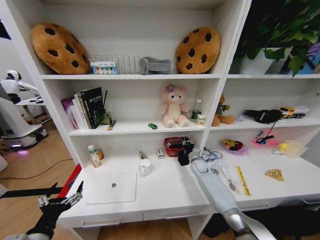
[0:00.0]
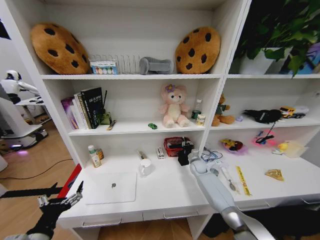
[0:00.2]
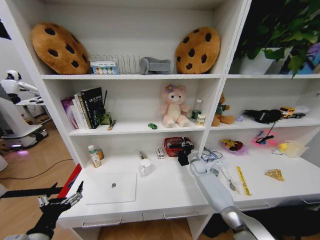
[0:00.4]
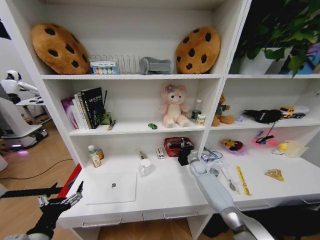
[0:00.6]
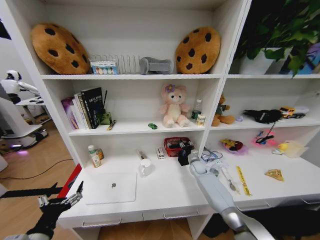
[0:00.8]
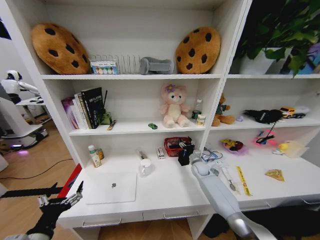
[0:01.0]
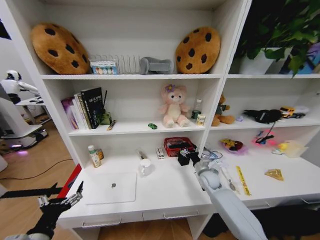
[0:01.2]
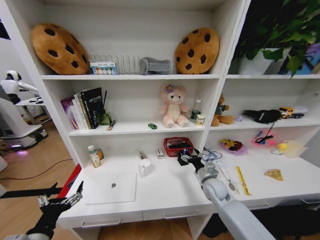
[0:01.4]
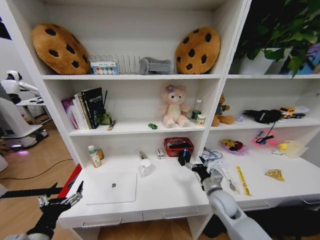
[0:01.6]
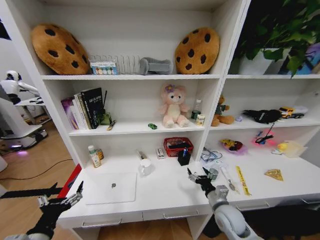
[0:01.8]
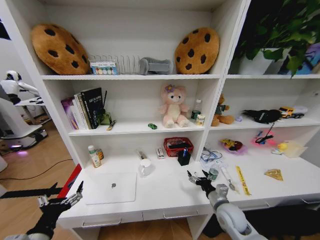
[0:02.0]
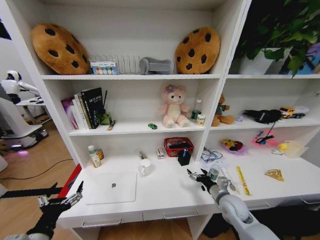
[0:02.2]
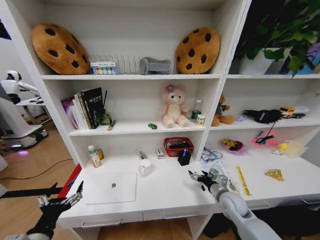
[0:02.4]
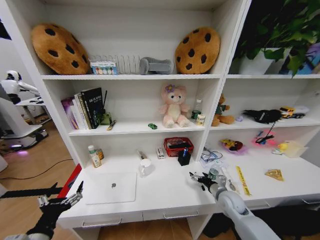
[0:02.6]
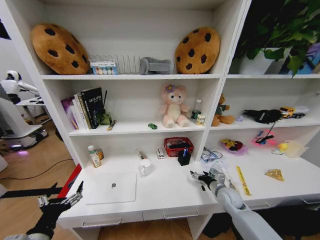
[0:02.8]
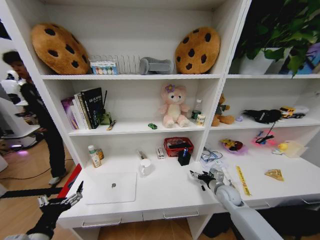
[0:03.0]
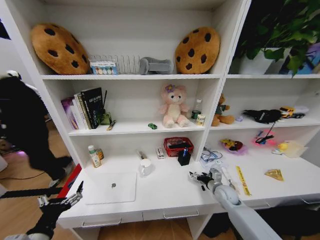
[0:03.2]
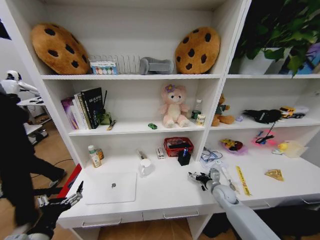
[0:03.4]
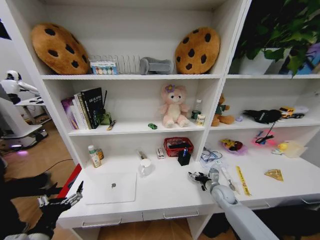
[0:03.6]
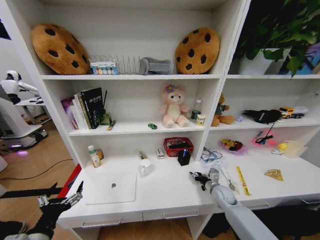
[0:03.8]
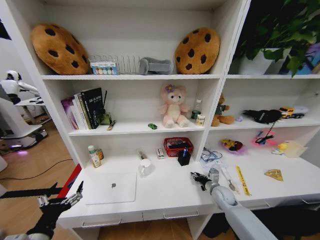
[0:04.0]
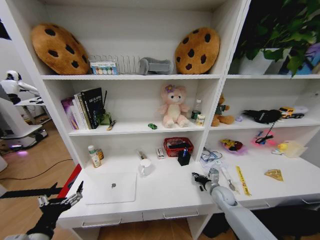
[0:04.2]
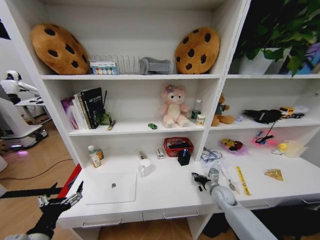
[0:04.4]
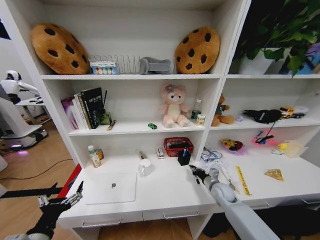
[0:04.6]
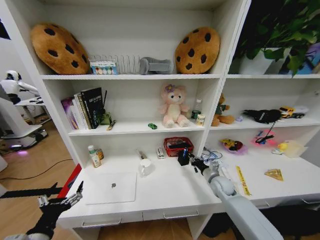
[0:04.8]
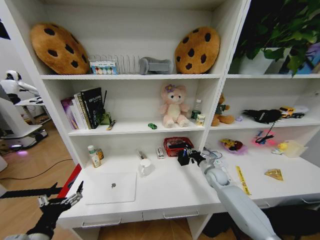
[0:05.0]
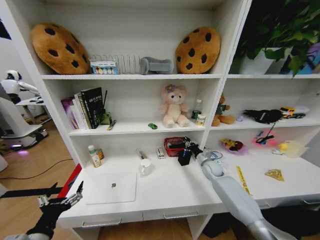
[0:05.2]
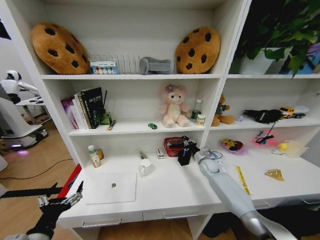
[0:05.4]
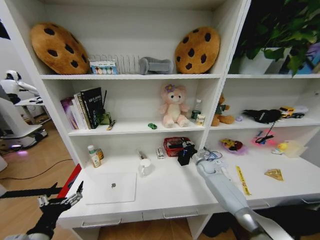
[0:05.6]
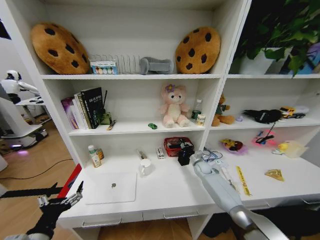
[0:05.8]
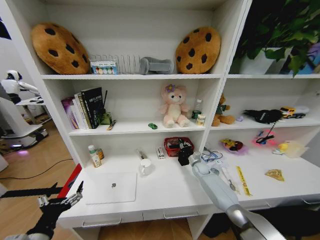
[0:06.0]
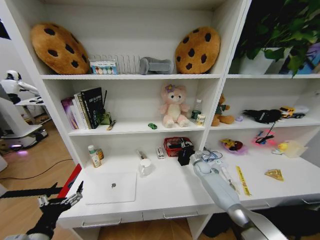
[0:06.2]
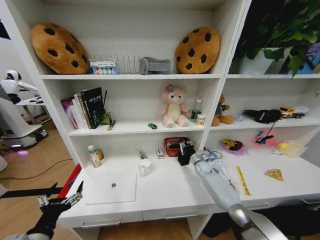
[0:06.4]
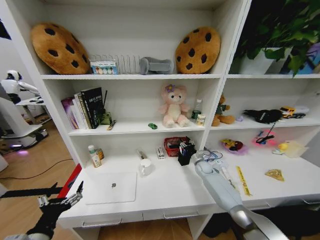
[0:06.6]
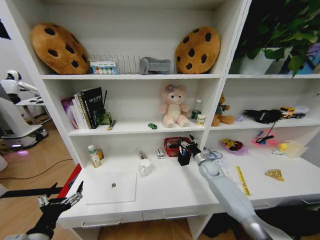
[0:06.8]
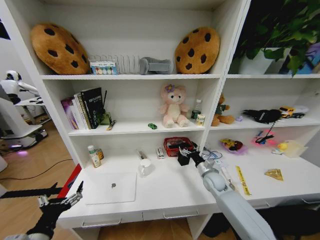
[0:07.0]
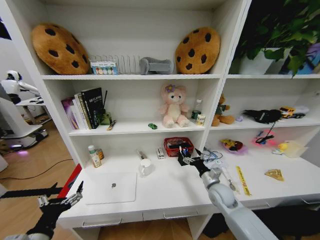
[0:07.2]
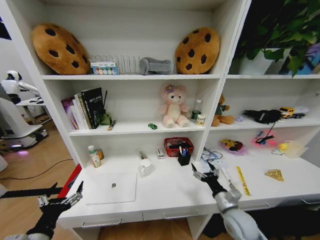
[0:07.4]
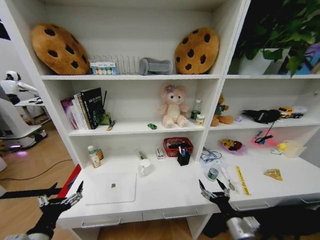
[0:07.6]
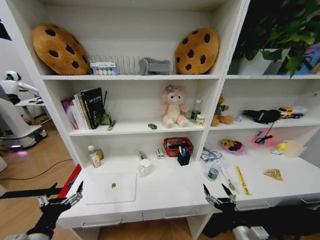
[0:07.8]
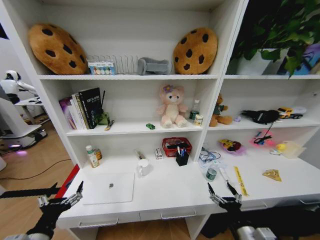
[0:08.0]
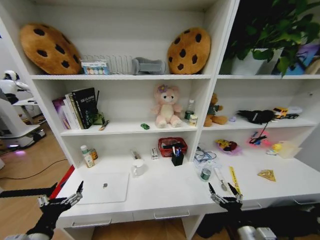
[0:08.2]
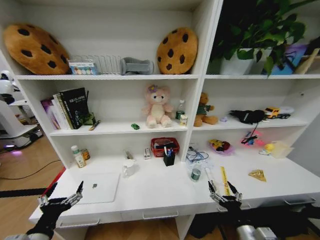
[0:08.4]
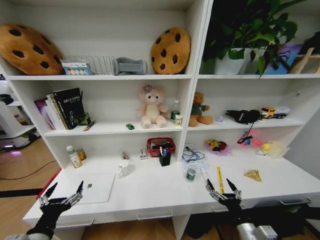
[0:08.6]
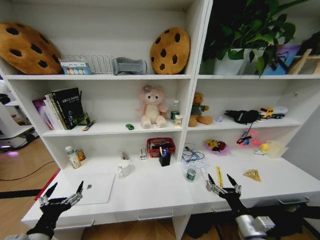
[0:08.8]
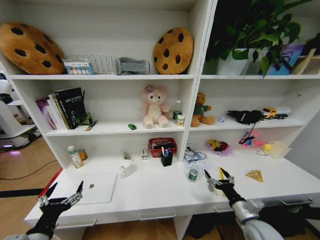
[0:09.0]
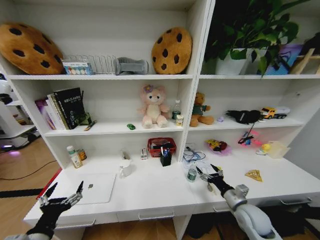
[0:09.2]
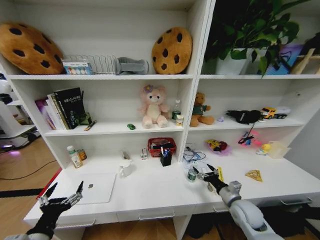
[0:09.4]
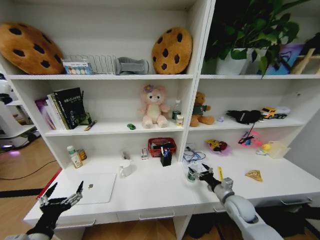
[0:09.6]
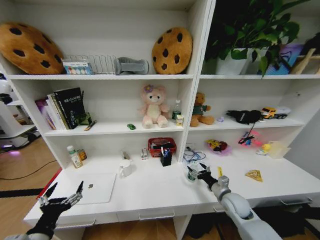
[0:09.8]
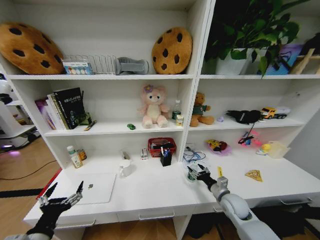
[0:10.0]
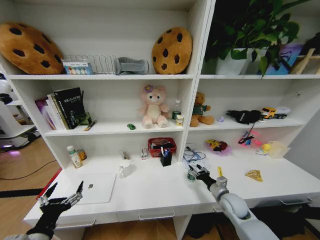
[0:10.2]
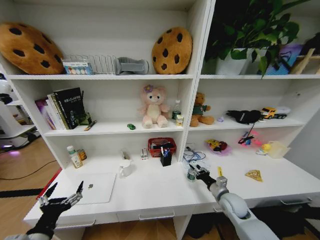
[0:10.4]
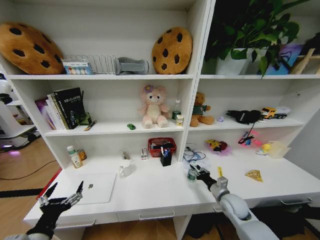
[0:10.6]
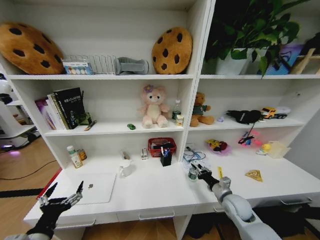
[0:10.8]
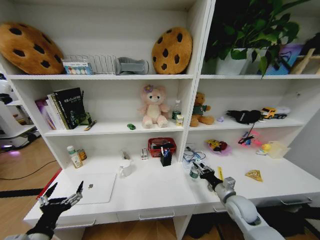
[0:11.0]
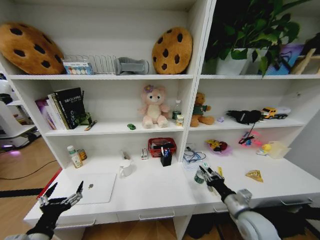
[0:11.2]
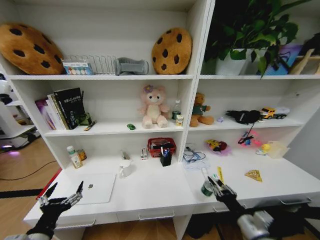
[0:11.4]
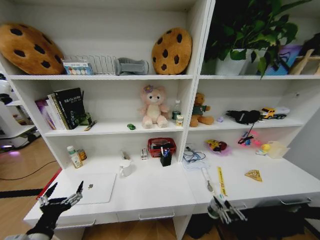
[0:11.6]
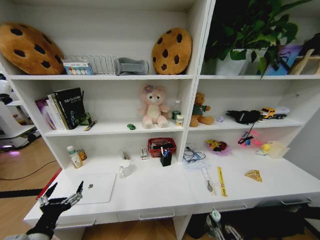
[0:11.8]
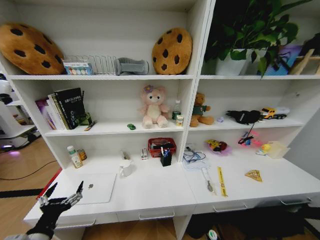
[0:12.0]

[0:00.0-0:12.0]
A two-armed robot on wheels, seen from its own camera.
Task of the whole recording: Organize the objects on the table.
0:00.0 to 0:01.6: The right gripper is displaced backward by approximately 20 cm, and opens.
0:01.6 to 0:03.0: The right gripper travels to the right, forward and downward by some 10 cm.
0:03.0 to 0:04.4: The right gripper closes.
0:04.4 to 0:06.0: The right gripper moves forward, roughly 15 cm.
0:06.0 to 0:07.6: The right gripper shifts about 35 cm backward, and opens.
0:07.6 to 0:09.0: The right gripper shifts some 5 cm to the right, and goes backward and returns, approximately 10 cm each way.
0:09.0 to 0:10.4: The right gripper heads forward, covering roughly 10 cm, and closes its fingers.
0:10.4 to 0:12.0: The right gripper moves backward, roughly 35 cm.

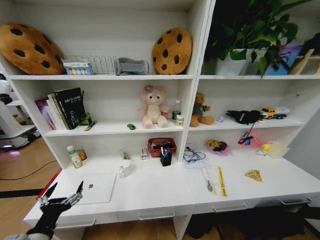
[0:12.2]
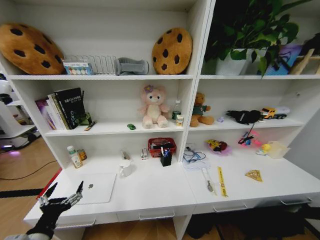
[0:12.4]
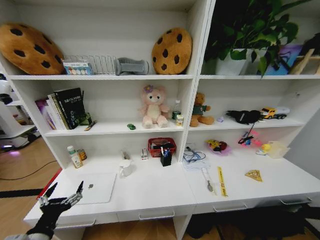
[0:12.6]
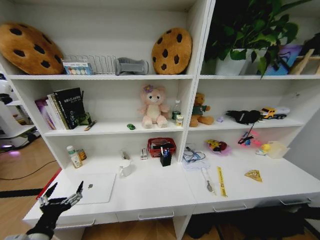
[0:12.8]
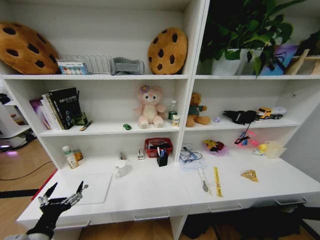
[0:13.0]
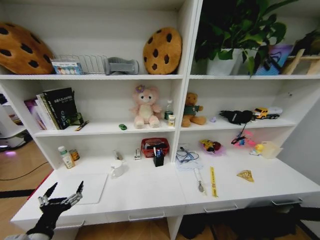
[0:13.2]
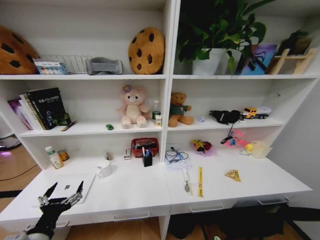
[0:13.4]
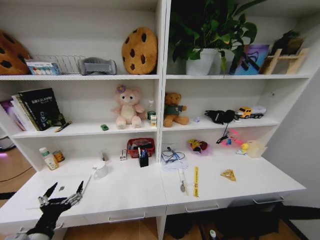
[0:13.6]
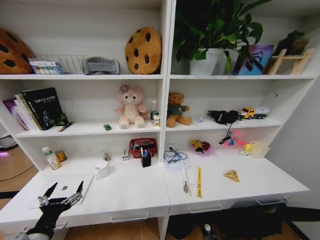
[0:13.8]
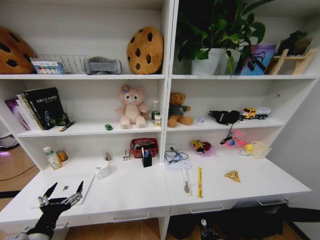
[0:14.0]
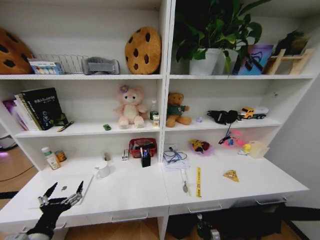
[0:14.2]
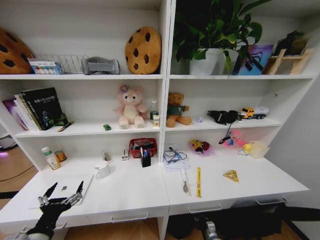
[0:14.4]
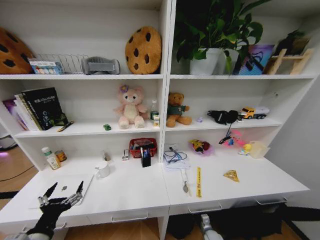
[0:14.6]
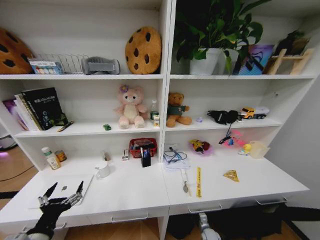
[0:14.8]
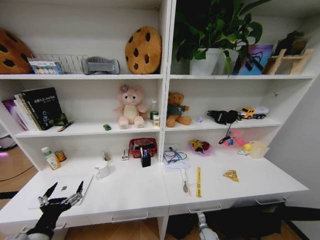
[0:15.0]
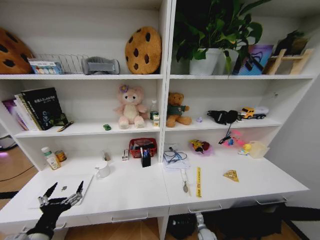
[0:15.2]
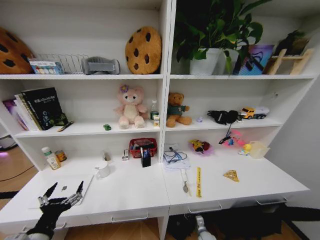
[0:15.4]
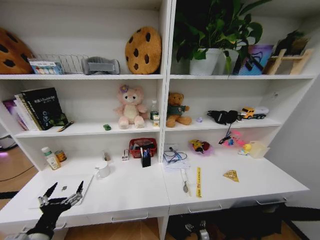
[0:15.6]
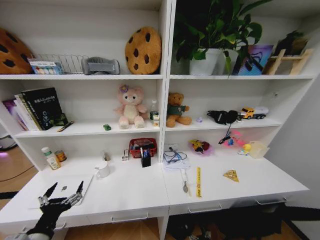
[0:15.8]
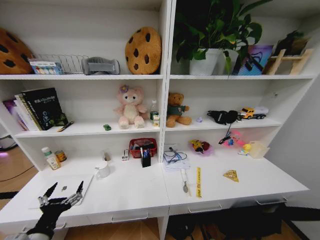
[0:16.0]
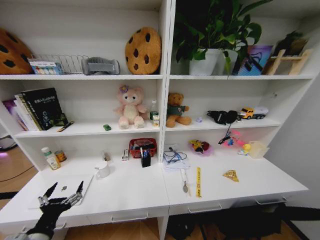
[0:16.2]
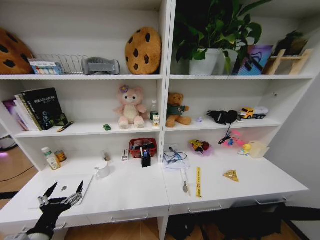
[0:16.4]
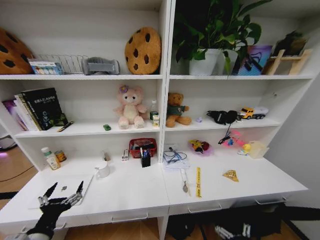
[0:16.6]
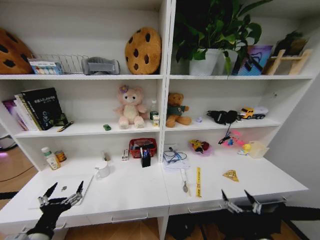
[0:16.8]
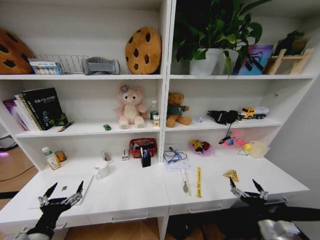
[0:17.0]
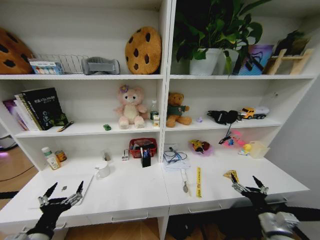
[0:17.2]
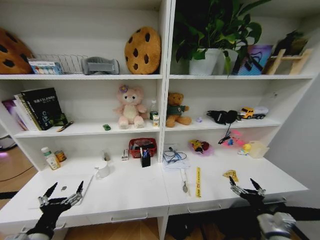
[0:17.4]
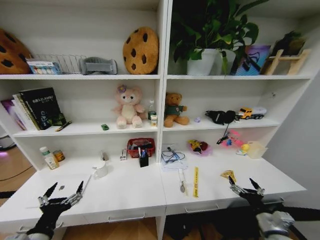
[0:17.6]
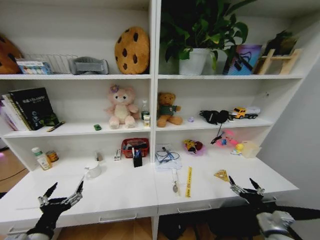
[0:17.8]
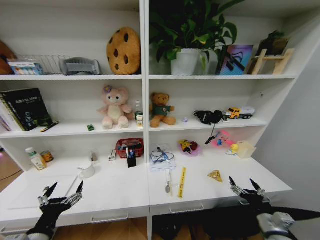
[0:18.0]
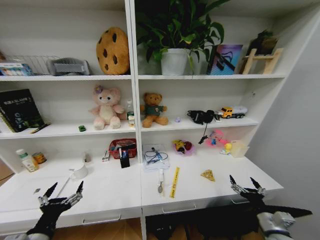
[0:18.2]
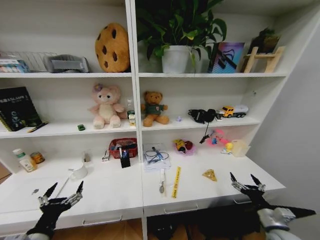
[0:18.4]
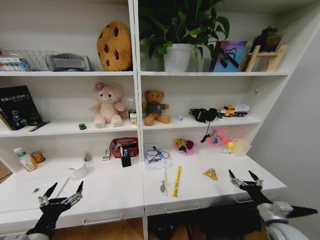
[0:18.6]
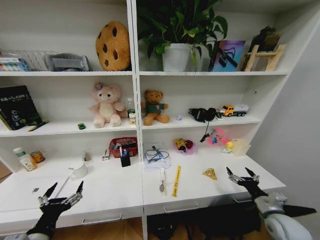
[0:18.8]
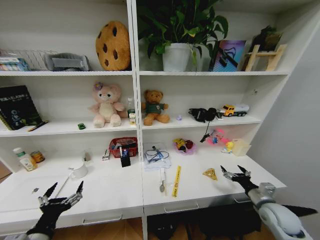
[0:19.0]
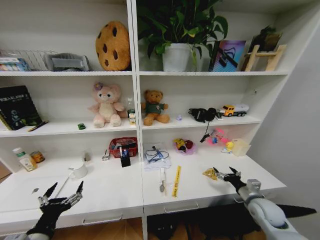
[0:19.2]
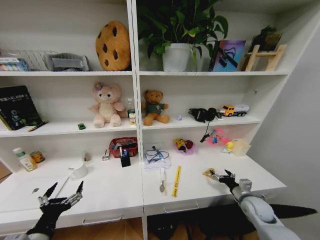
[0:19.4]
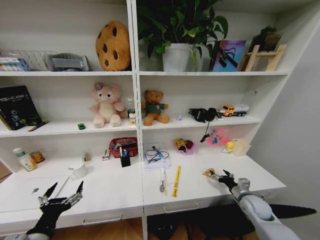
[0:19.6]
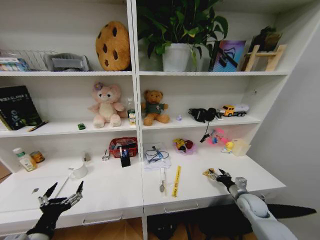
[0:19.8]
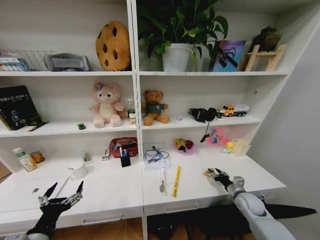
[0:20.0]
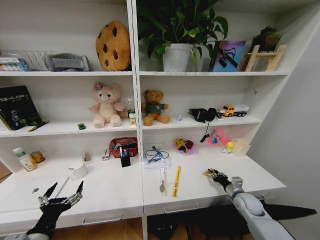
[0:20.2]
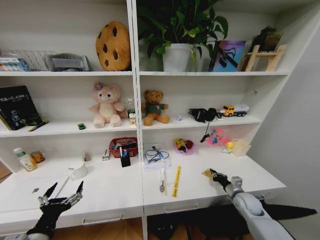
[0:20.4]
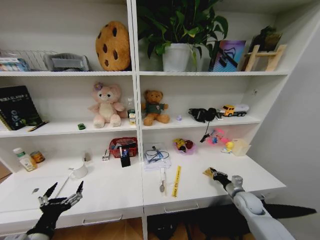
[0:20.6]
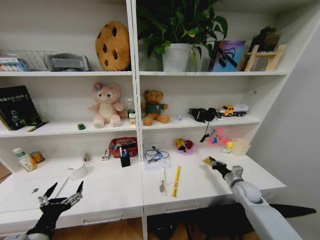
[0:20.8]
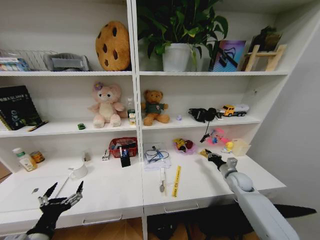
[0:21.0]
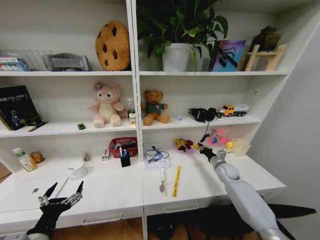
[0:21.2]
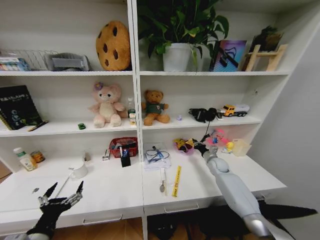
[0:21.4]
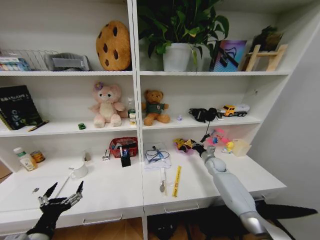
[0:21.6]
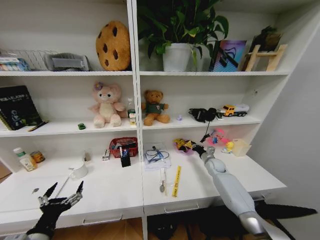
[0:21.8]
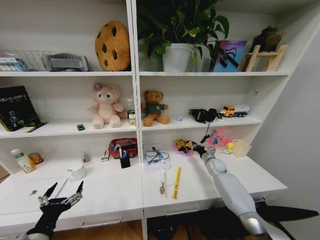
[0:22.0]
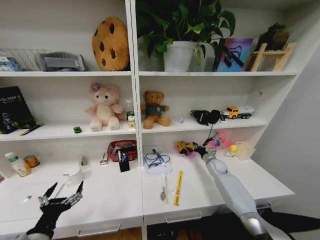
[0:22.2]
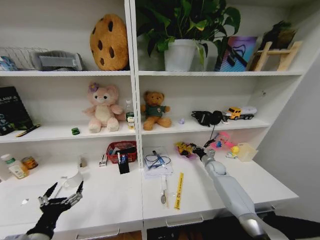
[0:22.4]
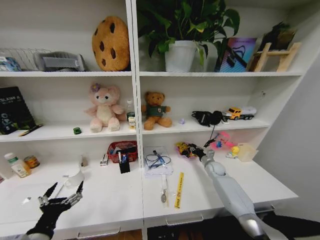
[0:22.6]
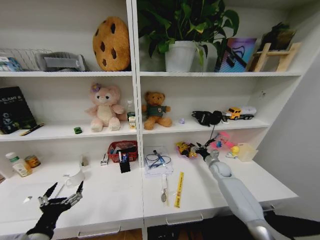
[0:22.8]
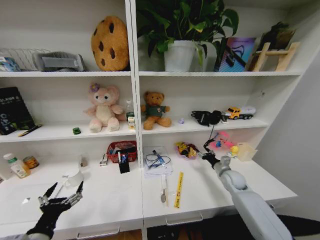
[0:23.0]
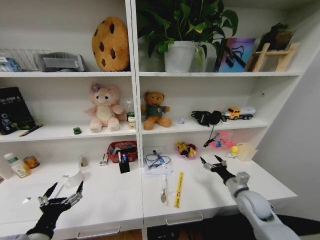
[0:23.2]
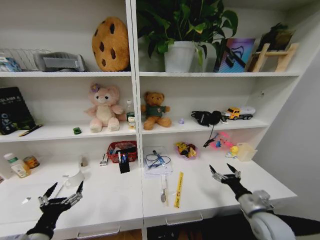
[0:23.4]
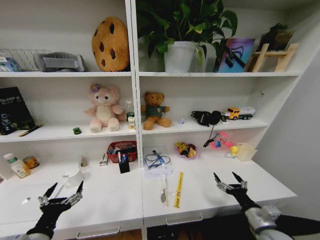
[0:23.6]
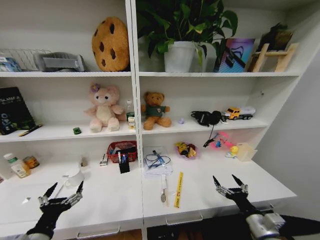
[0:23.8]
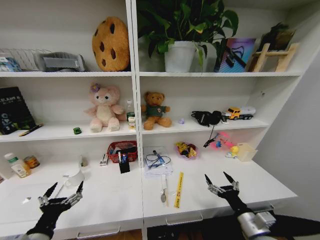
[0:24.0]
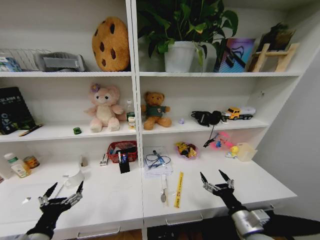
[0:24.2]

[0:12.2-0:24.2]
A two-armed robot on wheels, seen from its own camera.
Task of the whole recording: Organize the objects on the table.
0:12.2 to 0:13.8: The right gripper goes about 20 cm downward and forward.
0:15.2 to 0:16.6: The right gripper moves upward and backward, about 35 cm, and opens.
0:16.6 to 0:18.2: The right gripper travels forward, to the right and upward by about 20 cm.
0:18.2 to 0:19.8: The right gripper shifts roughly 15 cm forward.
0:19.8 to 0:21.2: The right gripper shifts about 10 cm forward, and closes up.
0:21.2 to 0:22.6: The right gripper heads forward, covering roughly 10 cm.
0:22.6 to 0:24.2: The right gripper shifts about 35 cm backward, and opens up.
